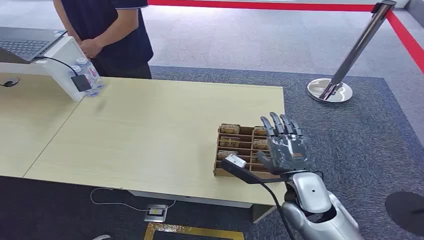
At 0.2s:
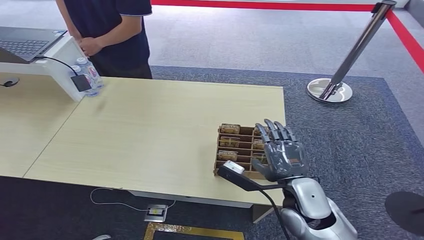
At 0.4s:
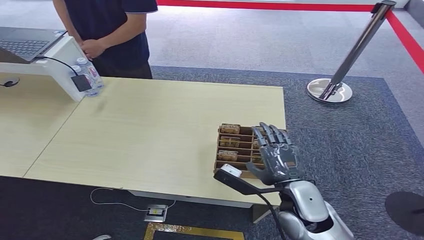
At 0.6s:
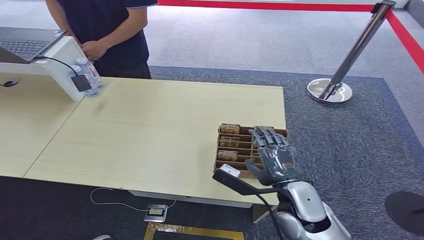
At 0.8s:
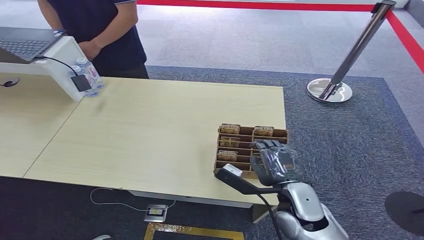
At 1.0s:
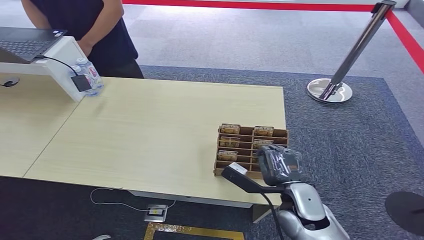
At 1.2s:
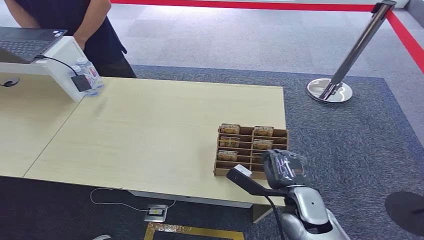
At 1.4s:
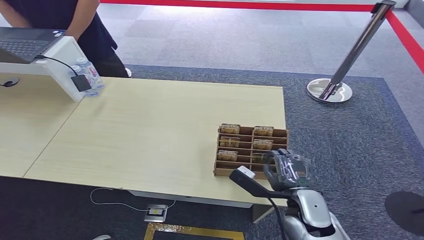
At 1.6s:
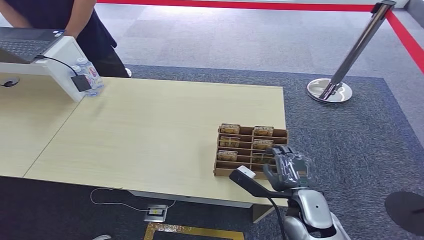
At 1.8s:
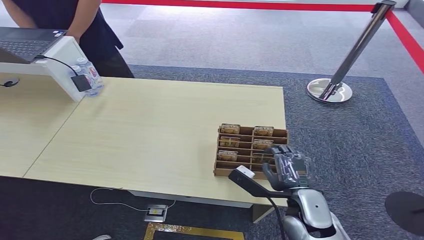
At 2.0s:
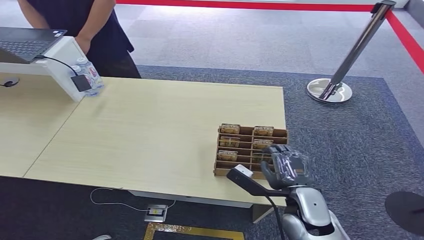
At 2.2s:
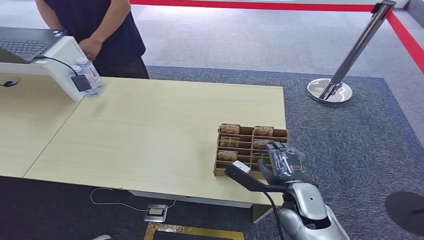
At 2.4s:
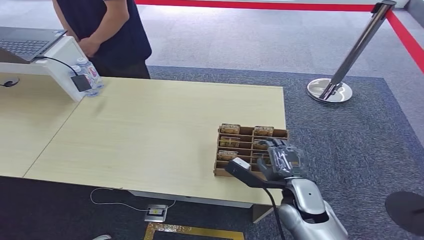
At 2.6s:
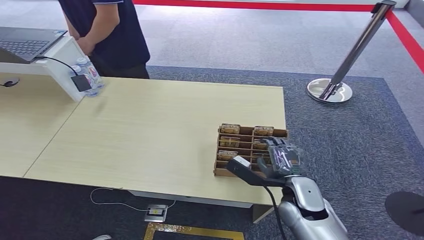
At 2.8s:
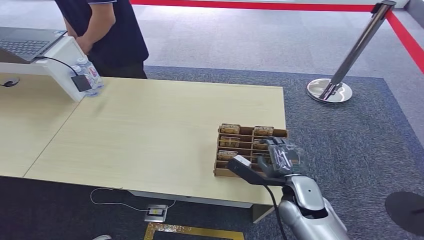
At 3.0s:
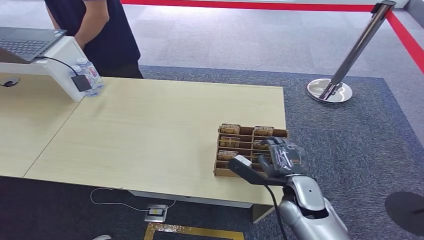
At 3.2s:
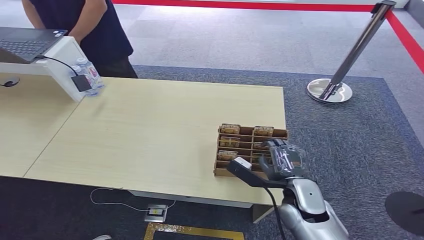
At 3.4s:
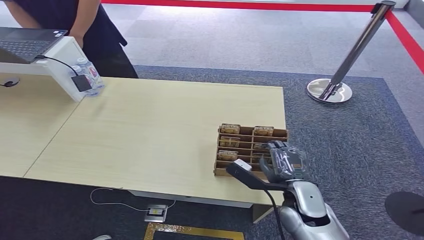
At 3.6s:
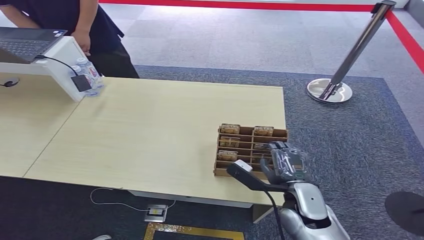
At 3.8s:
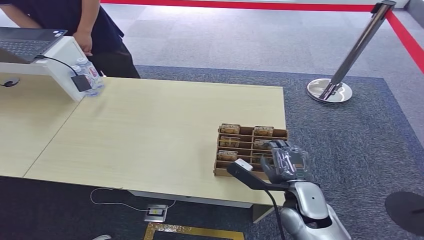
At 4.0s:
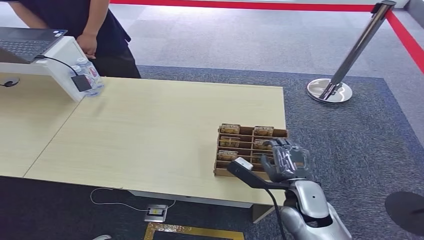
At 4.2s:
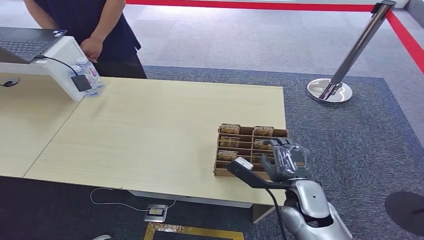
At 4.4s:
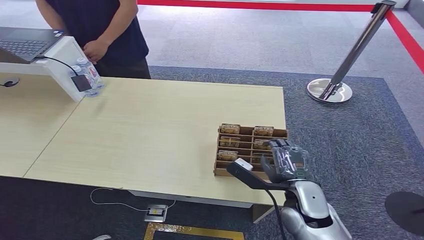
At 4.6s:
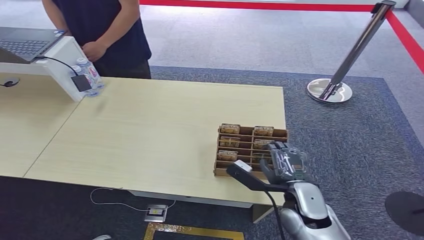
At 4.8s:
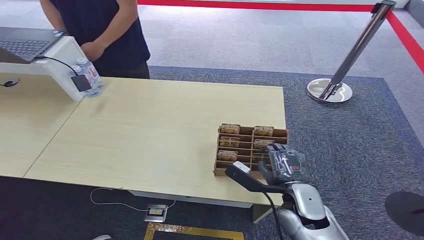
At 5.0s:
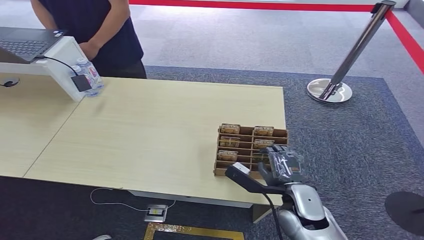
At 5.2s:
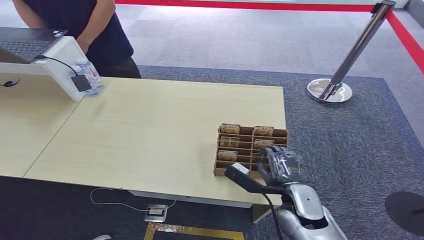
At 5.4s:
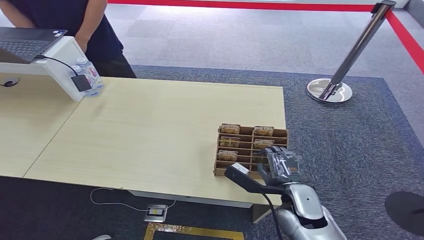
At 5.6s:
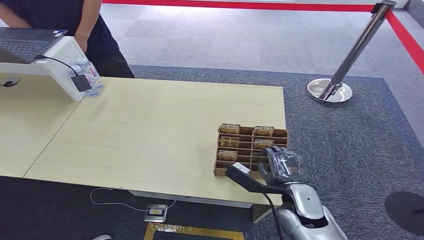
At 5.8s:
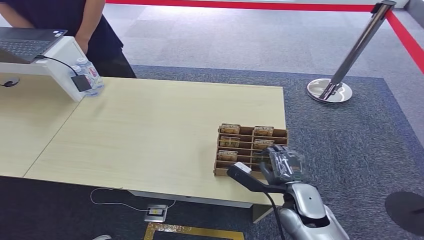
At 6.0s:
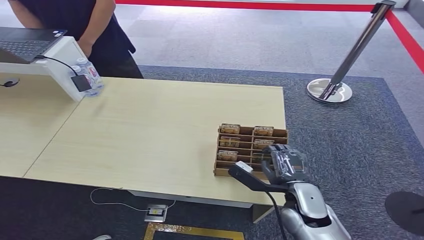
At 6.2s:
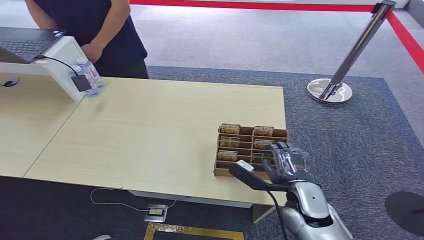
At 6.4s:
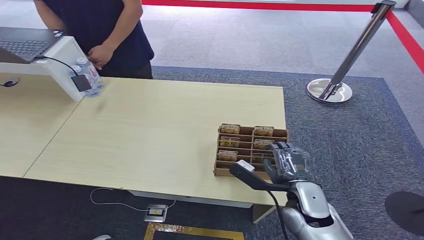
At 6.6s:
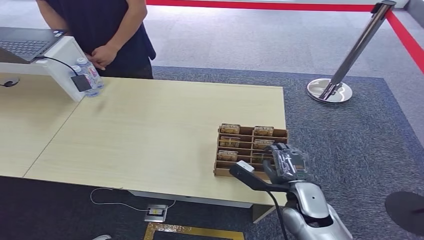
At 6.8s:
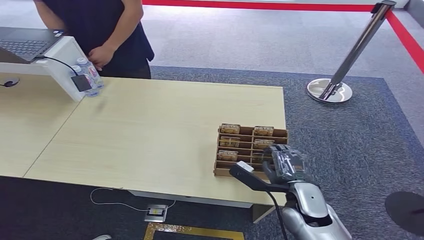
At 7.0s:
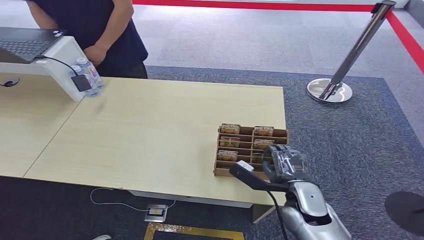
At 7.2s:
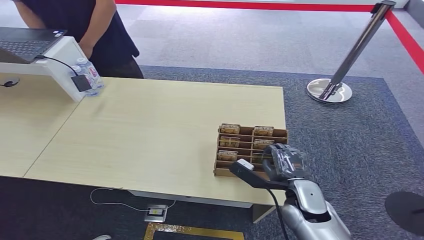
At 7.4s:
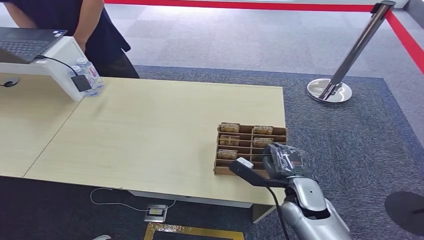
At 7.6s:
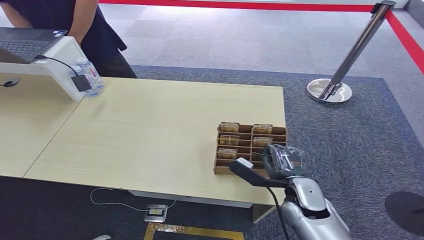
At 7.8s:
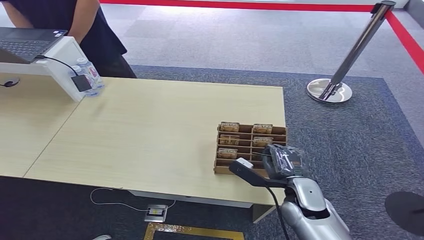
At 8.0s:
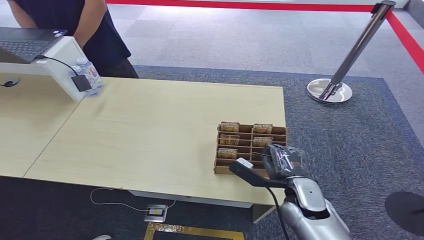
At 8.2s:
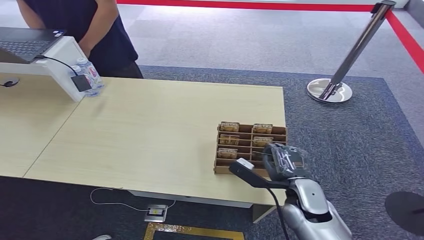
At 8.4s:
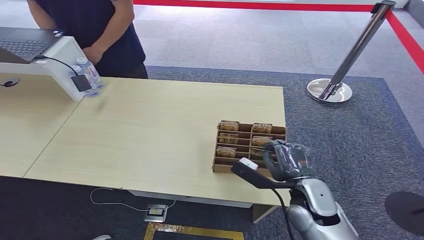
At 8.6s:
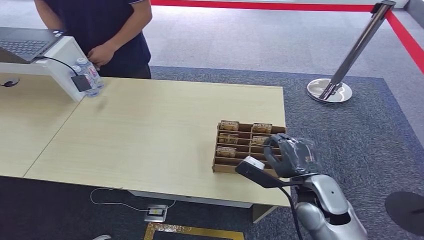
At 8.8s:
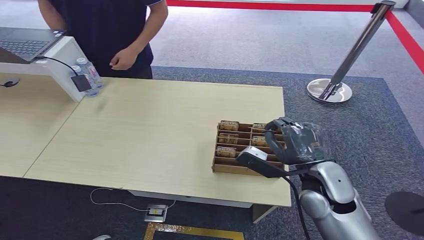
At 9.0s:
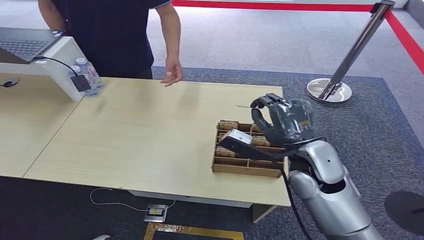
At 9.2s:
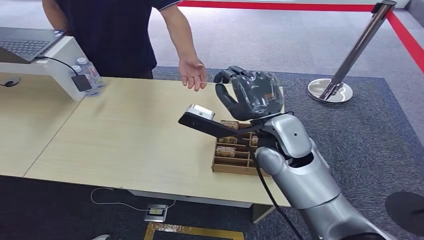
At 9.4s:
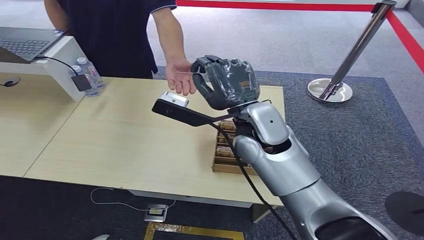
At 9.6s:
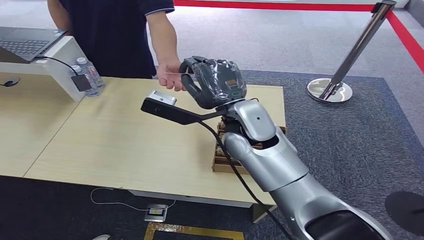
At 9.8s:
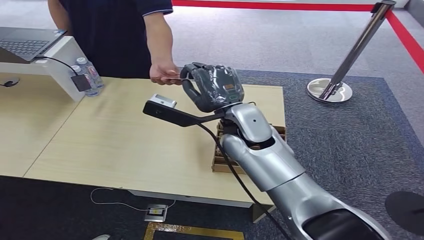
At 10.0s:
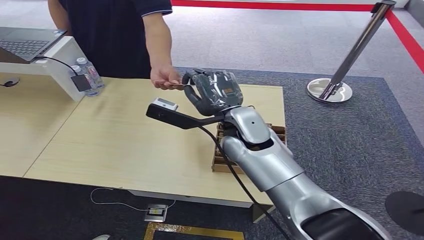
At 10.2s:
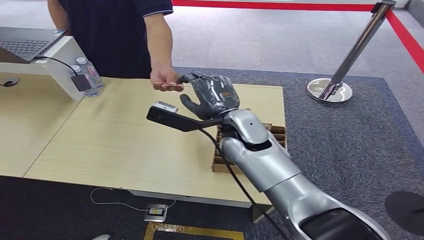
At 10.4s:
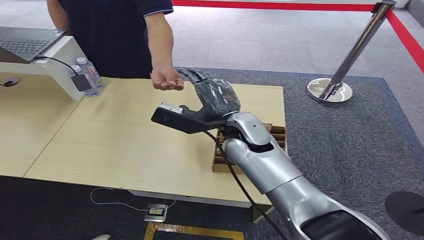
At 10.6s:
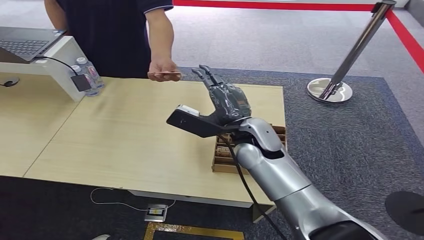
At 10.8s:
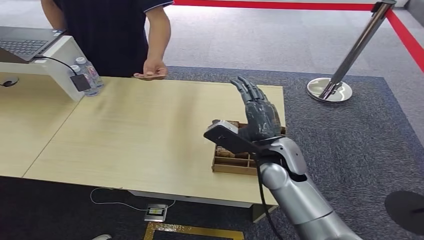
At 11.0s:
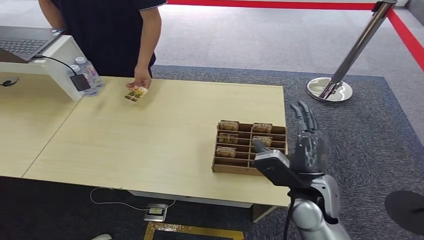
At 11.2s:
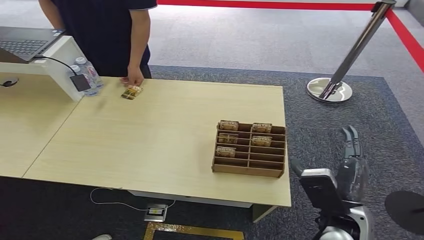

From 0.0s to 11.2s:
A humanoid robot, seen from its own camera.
Step, from 0.0s to 8.6s: Pick up the key card from the card box.
Step, from 9.0s to 11.2s: Hand the key card to the target.
From 1.6s to 4.8s: The hands stay close to where they were, moving slightly.
From 4.8s to 6.4s: The two hands keep their place.
From 6.4s to 8.0s: The hands make only small movements.
From 9.6s to 11.2s: The right hand travels to the right, backward and downward by approximately 30 cm.
